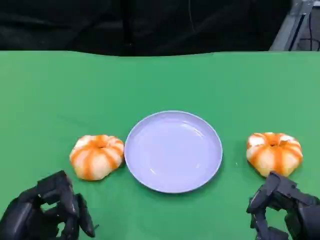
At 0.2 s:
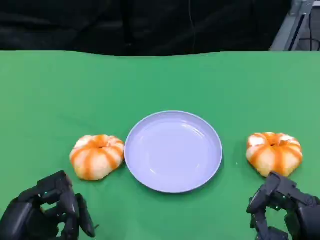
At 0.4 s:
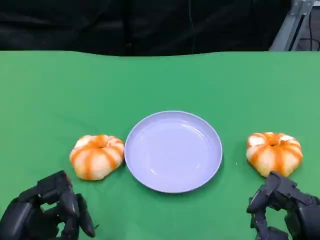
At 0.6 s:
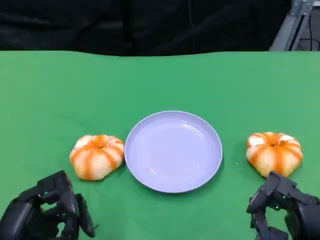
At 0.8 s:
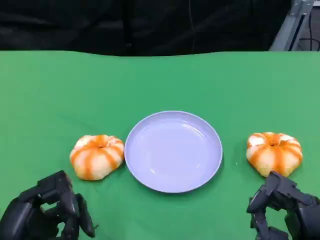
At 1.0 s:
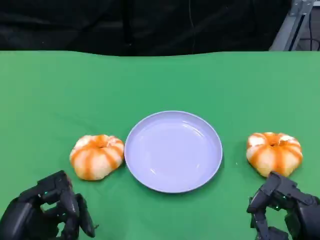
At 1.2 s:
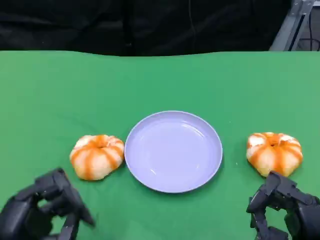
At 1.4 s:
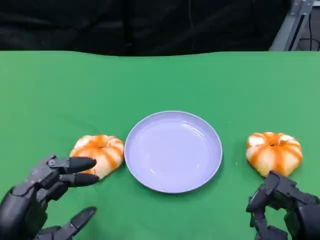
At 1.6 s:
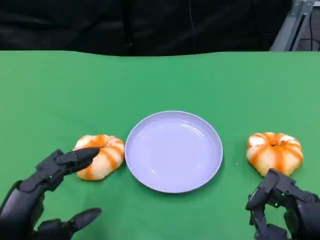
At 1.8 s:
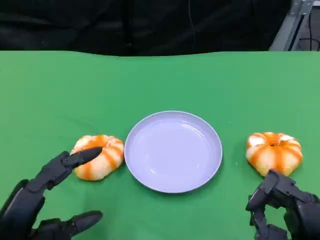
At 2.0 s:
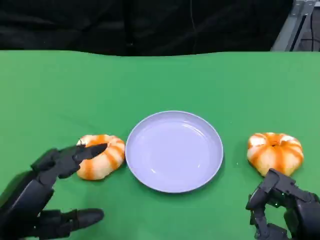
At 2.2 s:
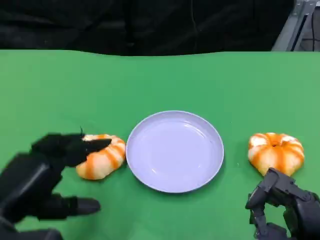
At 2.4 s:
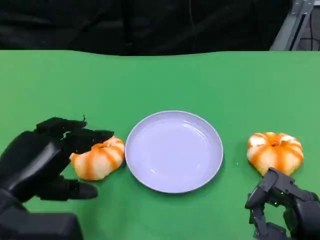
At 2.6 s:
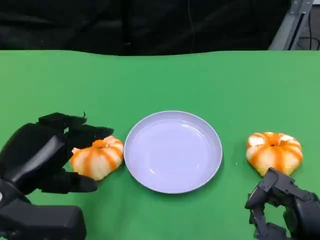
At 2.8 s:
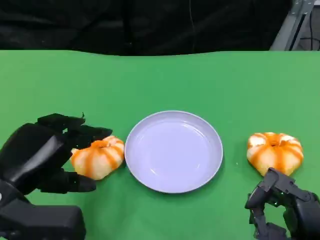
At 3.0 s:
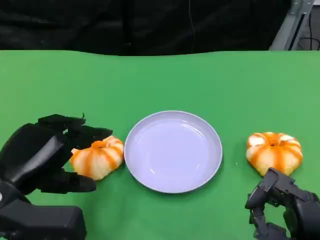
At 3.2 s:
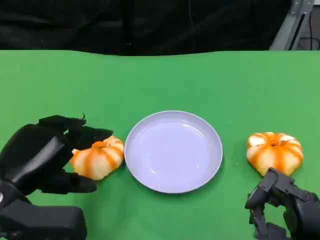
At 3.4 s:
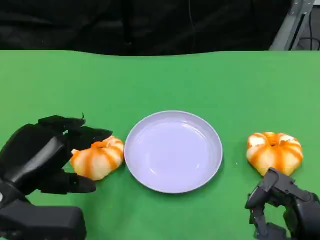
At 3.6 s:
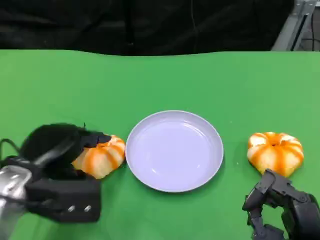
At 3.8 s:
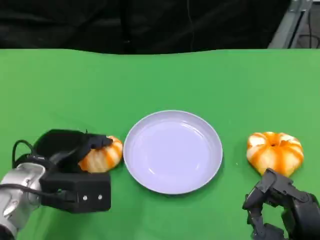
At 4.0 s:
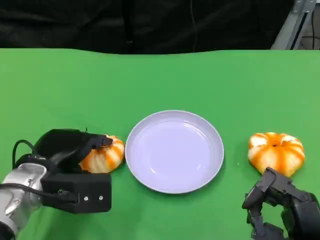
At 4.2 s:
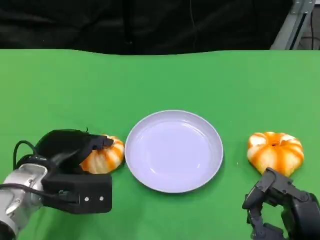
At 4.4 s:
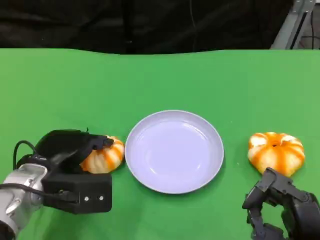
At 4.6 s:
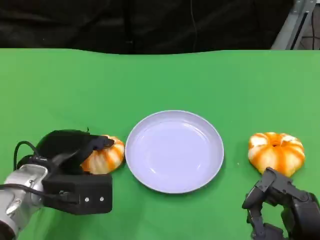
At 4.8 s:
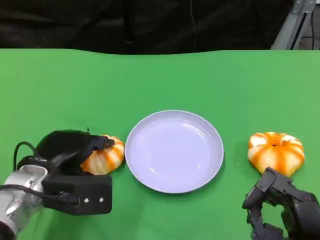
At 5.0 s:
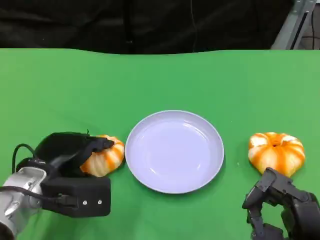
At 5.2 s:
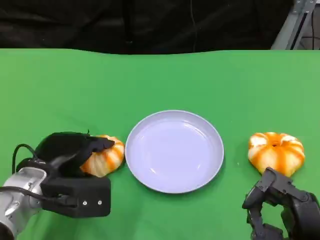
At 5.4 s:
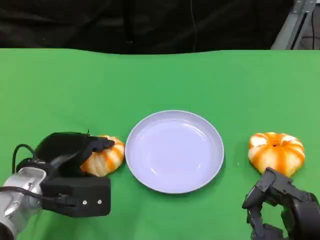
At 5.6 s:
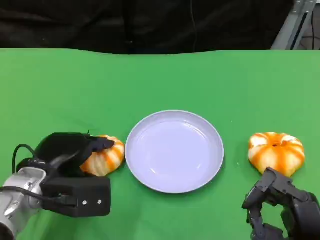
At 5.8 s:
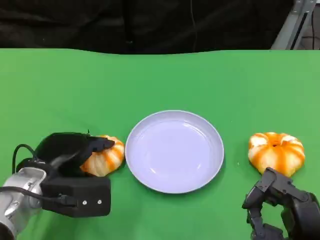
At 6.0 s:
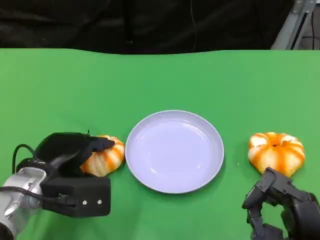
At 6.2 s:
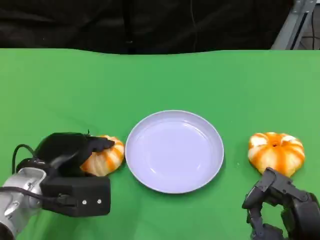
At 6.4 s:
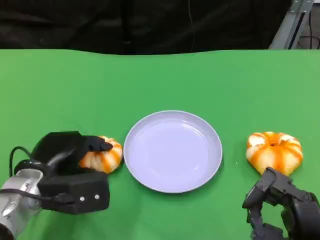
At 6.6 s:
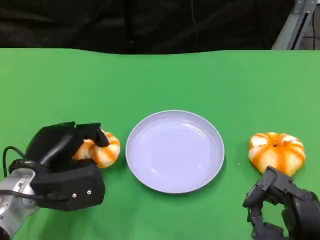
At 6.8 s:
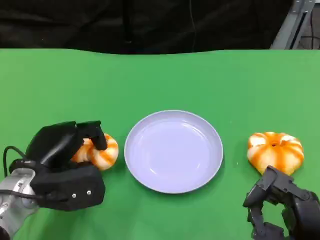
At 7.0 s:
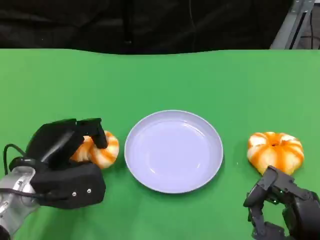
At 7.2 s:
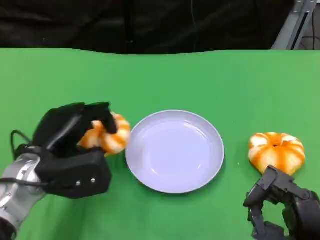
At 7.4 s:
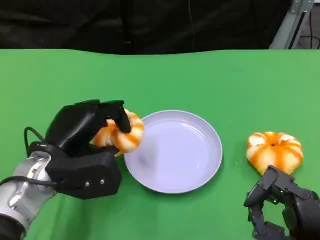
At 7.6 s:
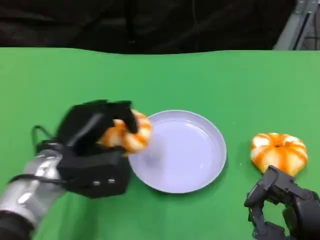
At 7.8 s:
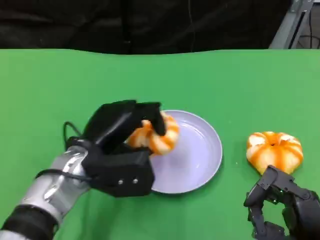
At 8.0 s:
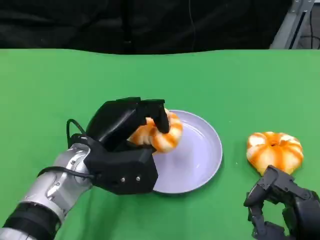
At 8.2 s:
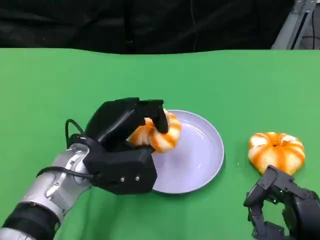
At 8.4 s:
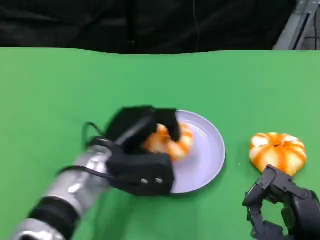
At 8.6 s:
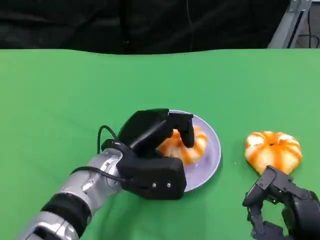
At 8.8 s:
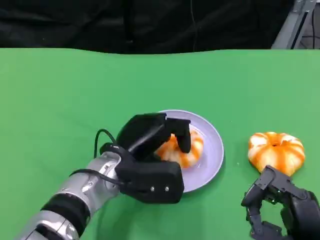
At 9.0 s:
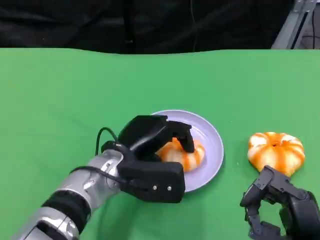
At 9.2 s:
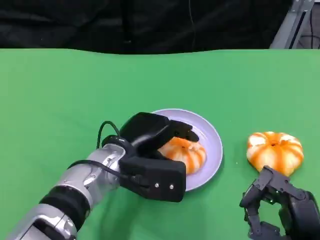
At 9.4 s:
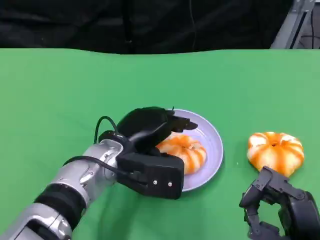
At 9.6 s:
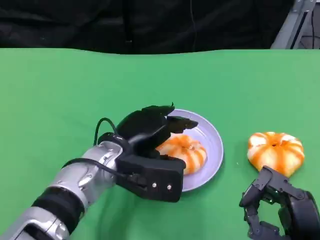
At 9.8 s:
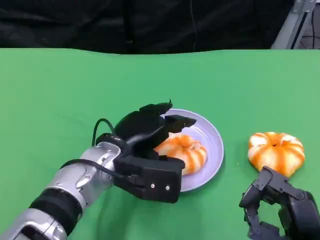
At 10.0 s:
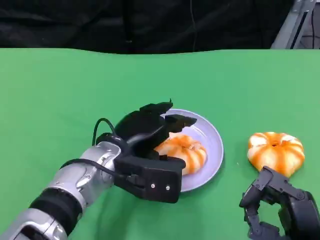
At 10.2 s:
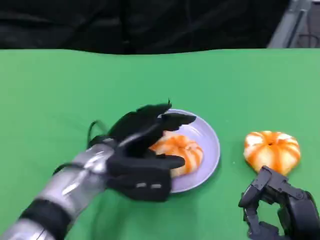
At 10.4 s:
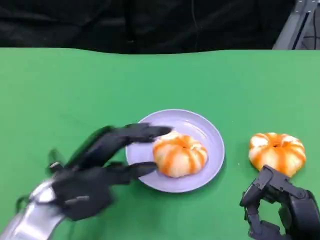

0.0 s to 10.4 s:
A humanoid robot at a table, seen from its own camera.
Task of the whole recording: Grasp the bread from the table and place it into the plate.
1.4 to 3.0 s: The left hand goes roughly 10 cm forward.
3.0 to 4.4 s: The left hand goes approximately 10 cm forward and downward.
4.4 to 6.0 s: Both hands stay put.
7.4 to 9.0 s: The left hand shifts roughly 10 cm to the right.
9.0 to 10.4 s: The left hand heads to the left, covering about 10 cm.

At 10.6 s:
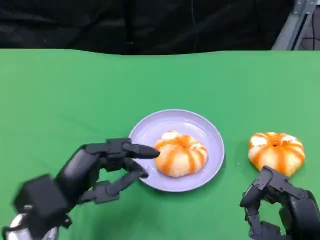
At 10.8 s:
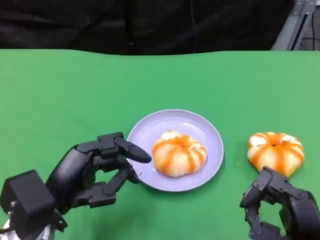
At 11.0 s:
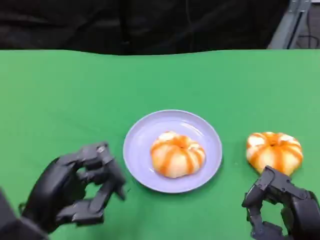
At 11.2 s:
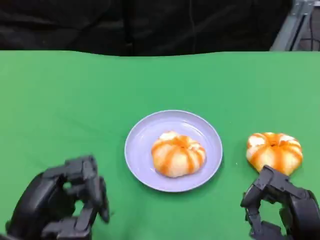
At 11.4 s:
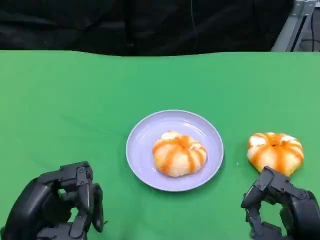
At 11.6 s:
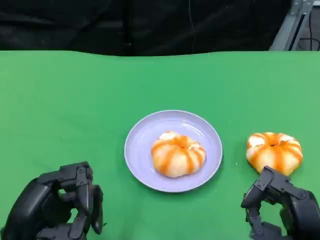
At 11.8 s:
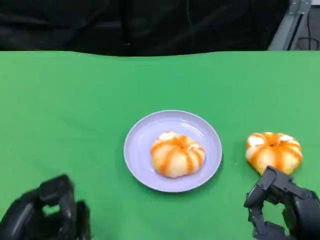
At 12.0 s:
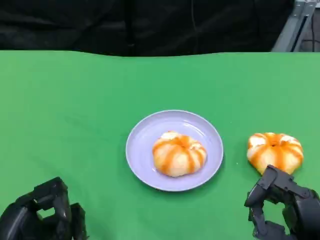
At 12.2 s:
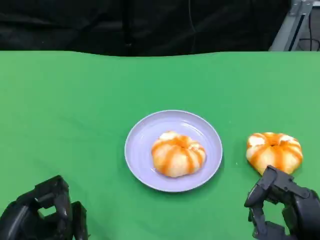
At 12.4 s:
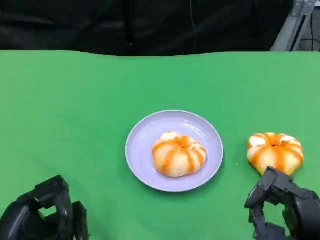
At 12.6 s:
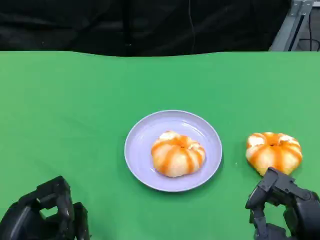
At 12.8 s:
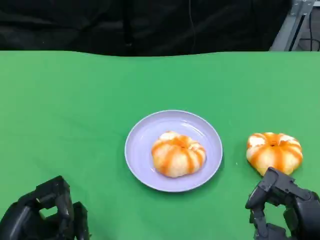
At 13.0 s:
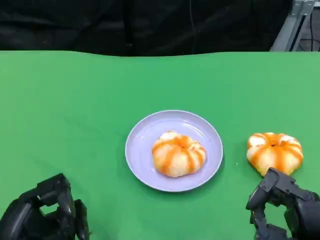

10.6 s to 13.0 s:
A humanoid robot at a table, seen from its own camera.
Task of the whole recording: Grasp the bread from the table and place it into the plate.
10.6 to 11.8 s: The left hand moves backward, approximately 10 cm.
11.8 to 13.0 s: The two hands keep their place.

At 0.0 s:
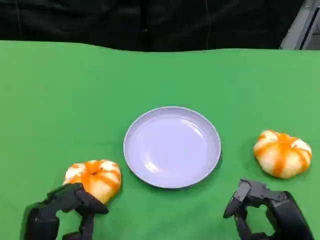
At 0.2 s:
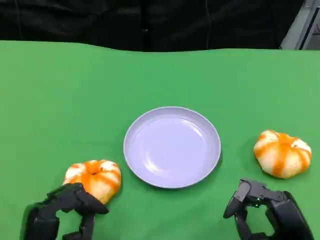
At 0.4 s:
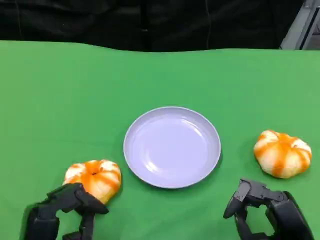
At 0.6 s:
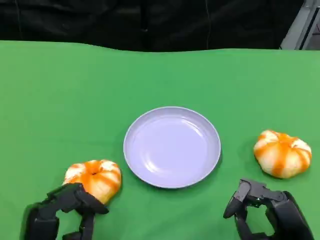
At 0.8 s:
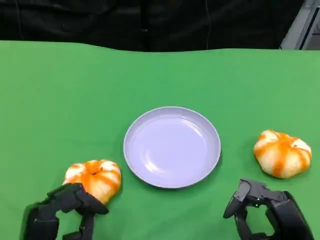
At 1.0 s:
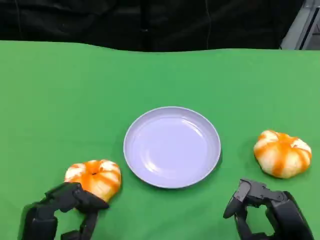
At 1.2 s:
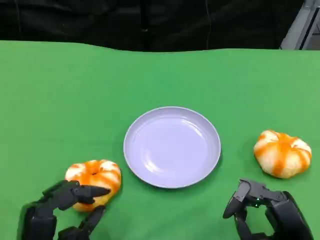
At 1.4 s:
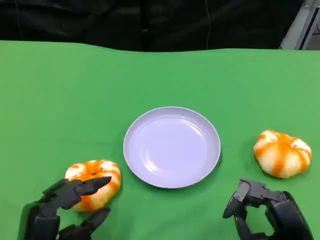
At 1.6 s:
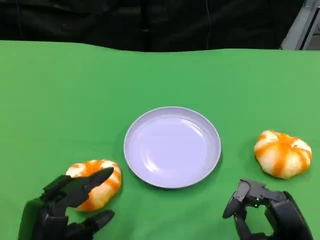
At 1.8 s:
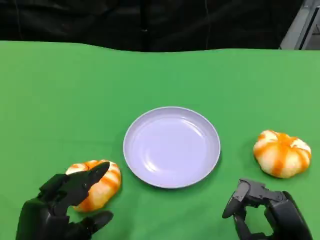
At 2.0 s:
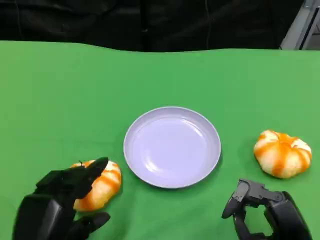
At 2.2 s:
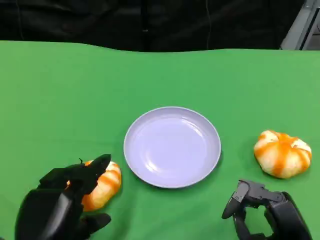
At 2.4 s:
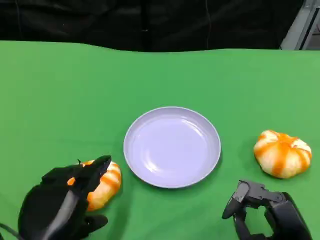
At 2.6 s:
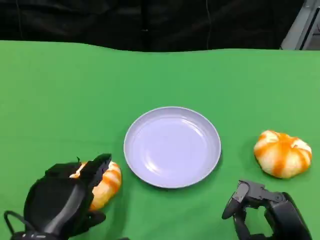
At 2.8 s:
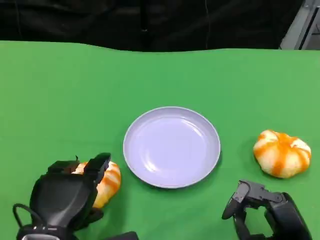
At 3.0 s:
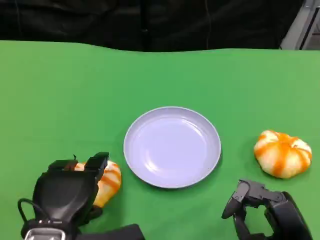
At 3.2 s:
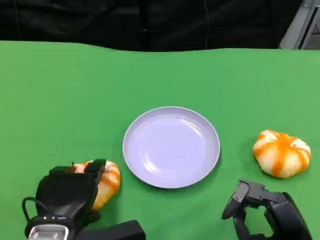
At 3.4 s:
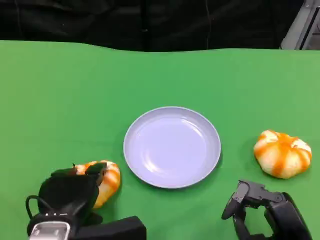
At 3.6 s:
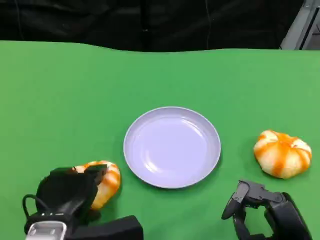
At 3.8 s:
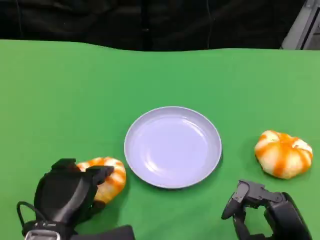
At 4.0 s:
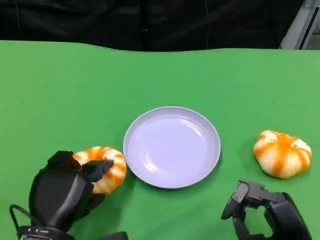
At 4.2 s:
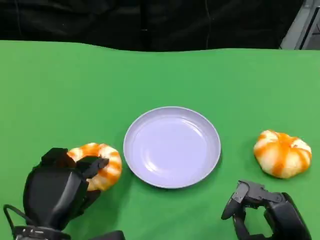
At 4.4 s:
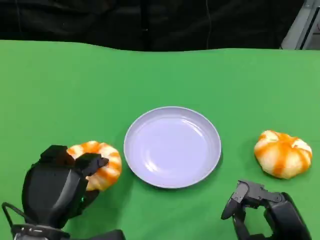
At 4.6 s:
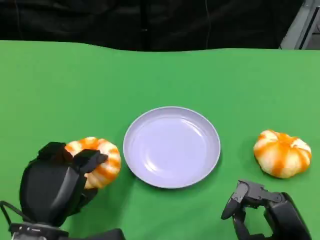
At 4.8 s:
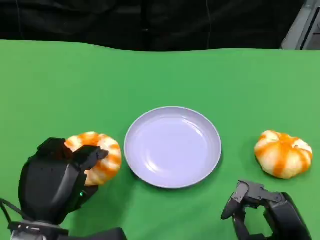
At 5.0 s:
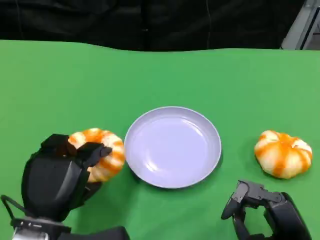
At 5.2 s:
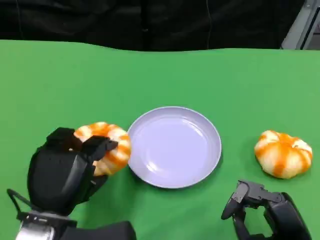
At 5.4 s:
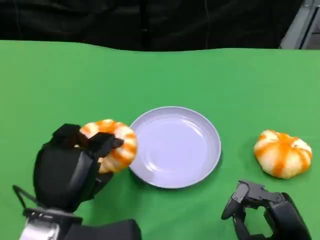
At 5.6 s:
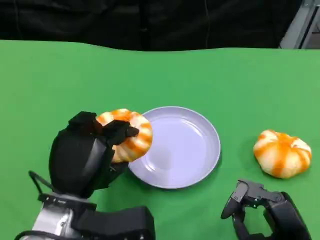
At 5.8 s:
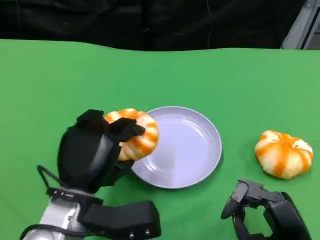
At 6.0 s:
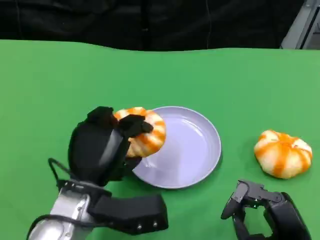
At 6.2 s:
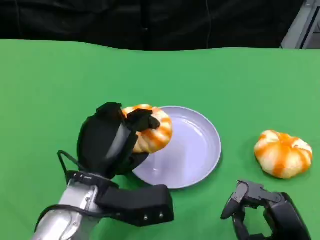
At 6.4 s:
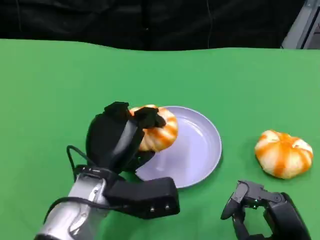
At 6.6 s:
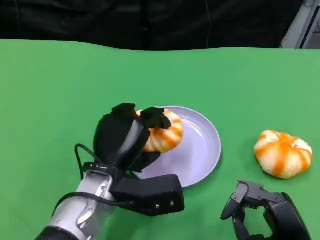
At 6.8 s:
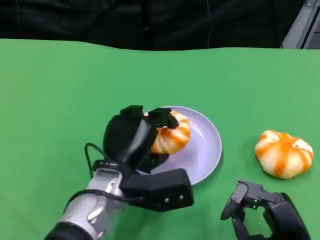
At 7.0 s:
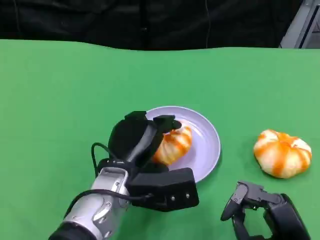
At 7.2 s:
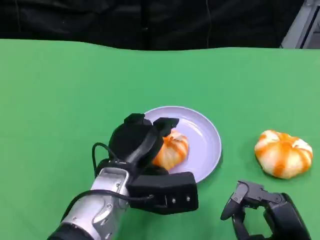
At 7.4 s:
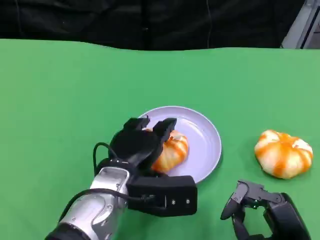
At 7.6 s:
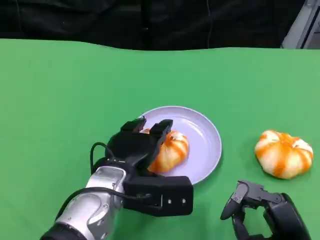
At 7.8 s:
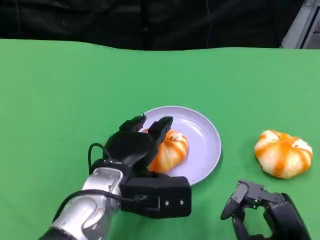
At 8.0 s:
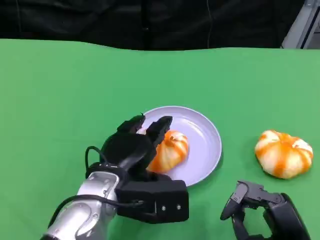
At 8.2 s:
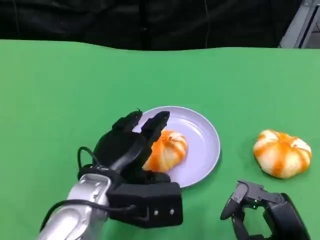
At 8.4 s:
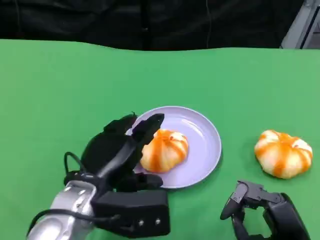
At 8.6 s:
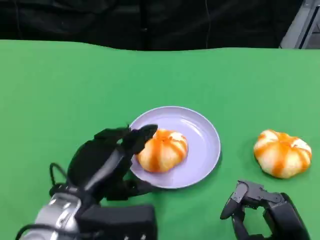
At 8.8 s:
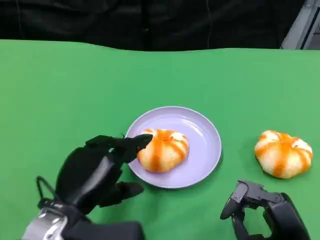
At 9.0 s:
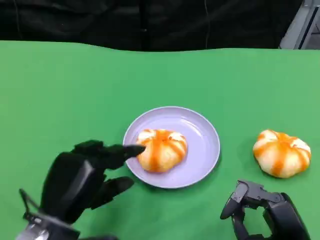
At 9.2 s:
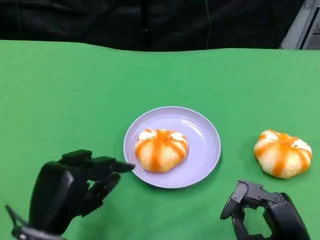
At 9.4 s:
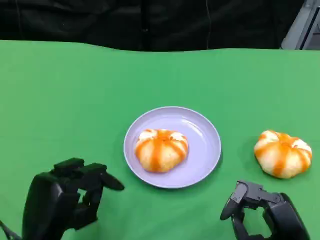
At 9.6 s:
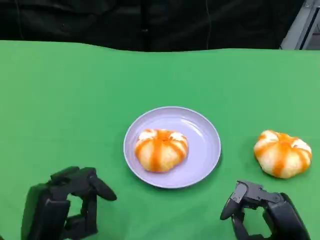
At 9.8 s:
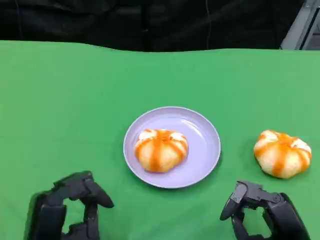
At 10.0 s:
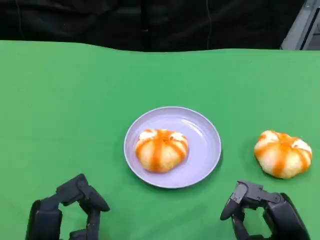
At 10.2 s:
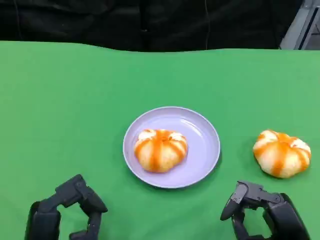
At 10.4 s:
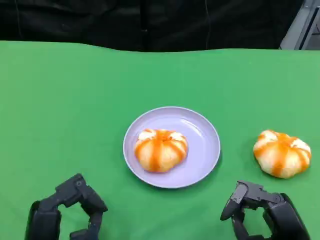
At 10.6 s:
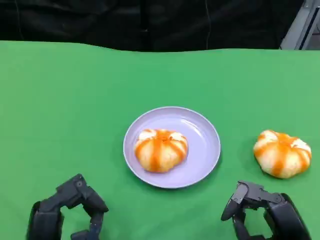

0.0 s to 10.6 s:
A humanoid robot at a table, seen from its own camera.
Task of the whole recording: Grasp the bread from the table and place it into the plate.
0.0 to 1.6 s: The hands make only small movements.
1.6 to 3.0 s: The left hand changes place by approximately 5 cm.
4.6 to 6.0 s: The left hand moves to the right, about 5 cm.
7.6 to 9.0 s: The left hand shifts about 10 cm to the left and backward.
9.0 to 10.6 s: The left hand ends up some 5 cm from where it was.
